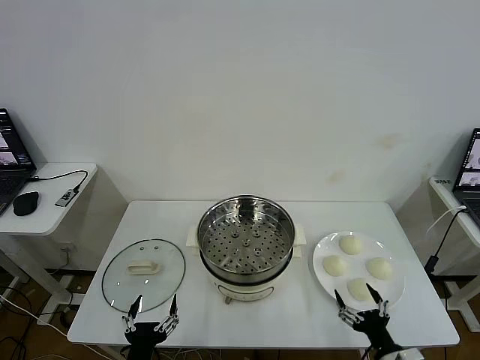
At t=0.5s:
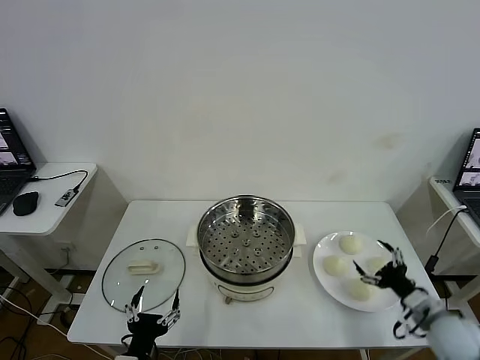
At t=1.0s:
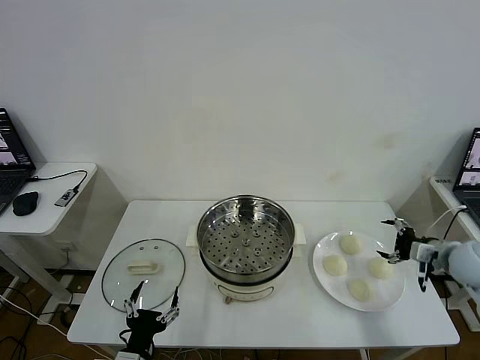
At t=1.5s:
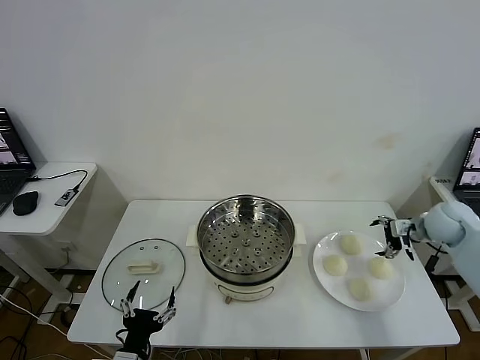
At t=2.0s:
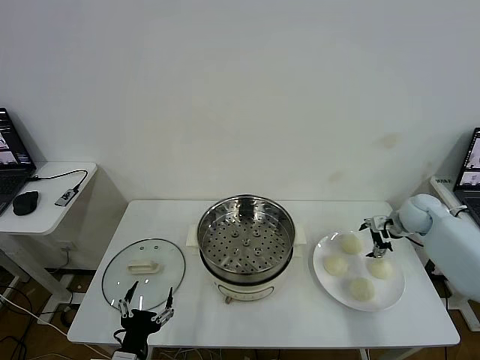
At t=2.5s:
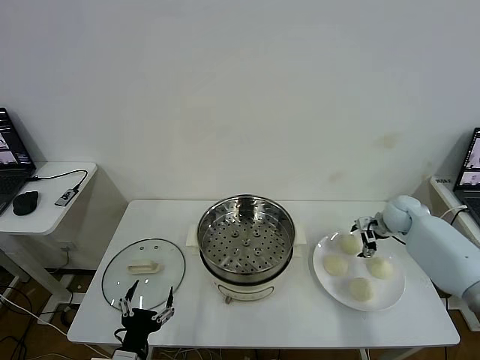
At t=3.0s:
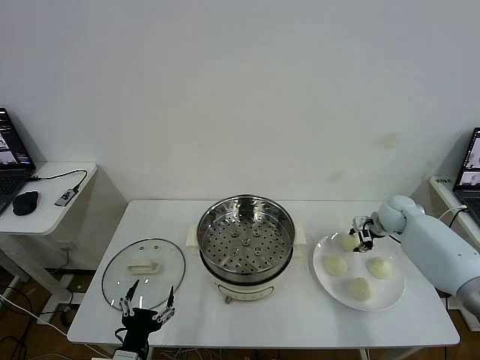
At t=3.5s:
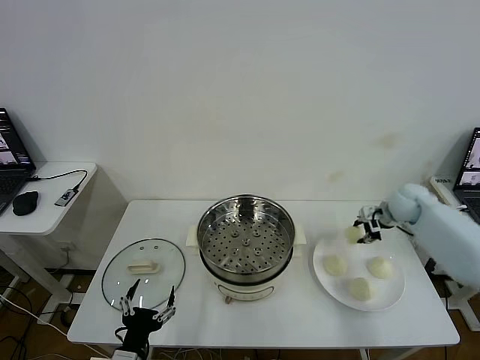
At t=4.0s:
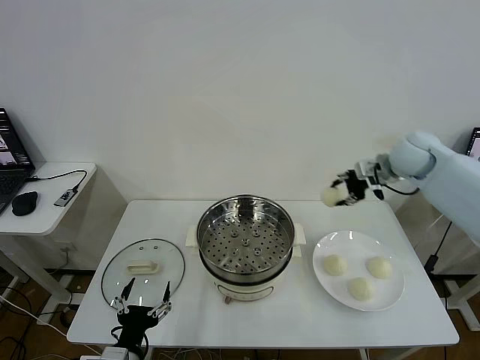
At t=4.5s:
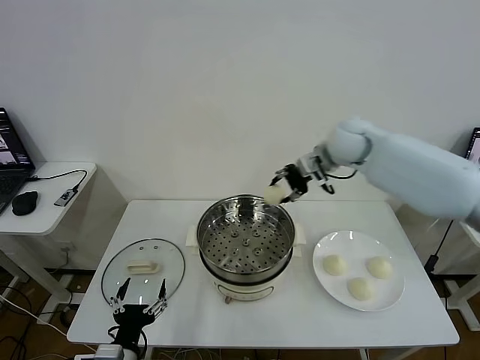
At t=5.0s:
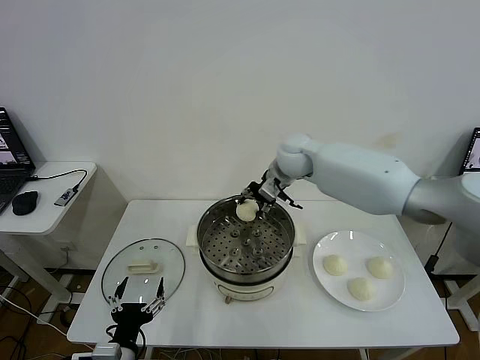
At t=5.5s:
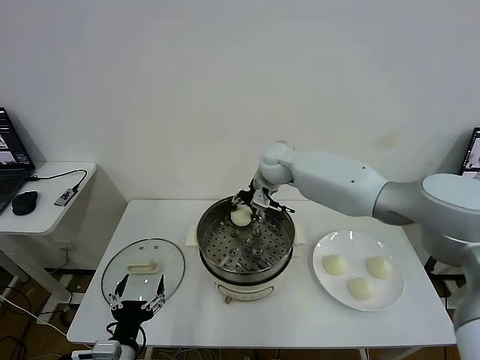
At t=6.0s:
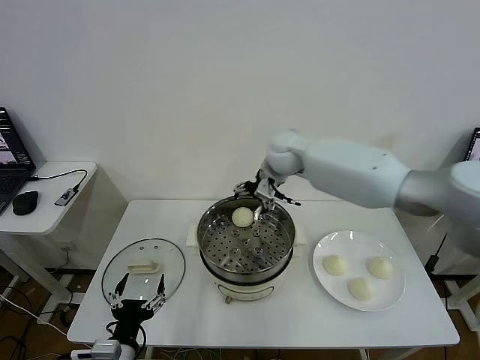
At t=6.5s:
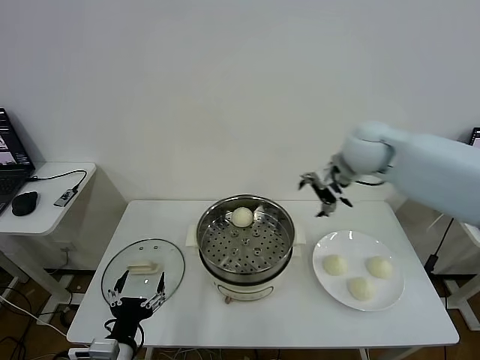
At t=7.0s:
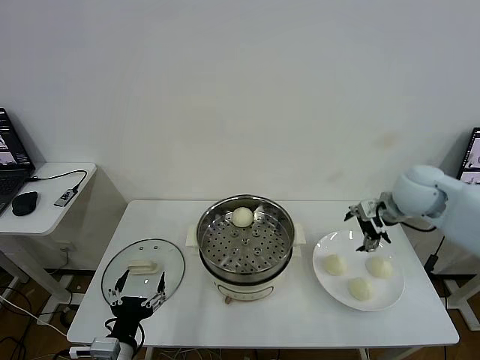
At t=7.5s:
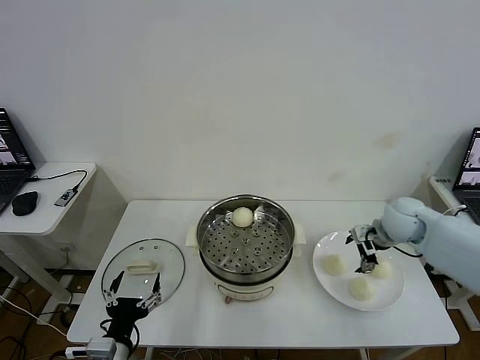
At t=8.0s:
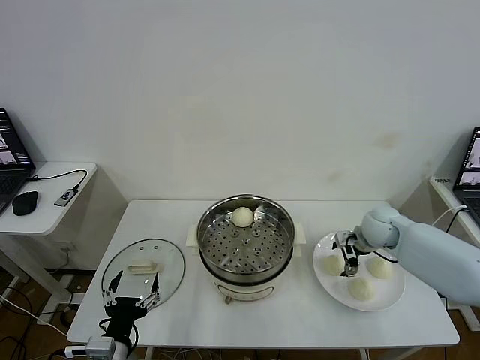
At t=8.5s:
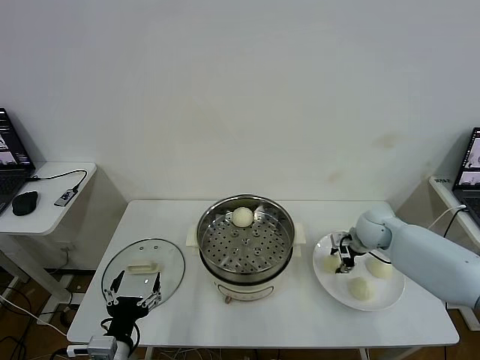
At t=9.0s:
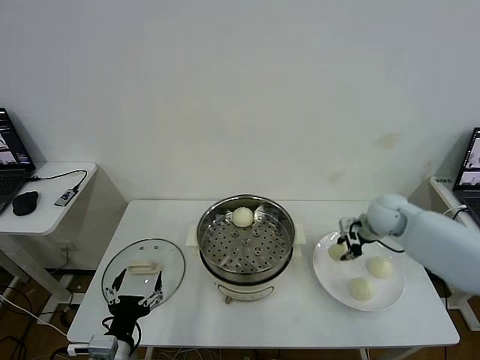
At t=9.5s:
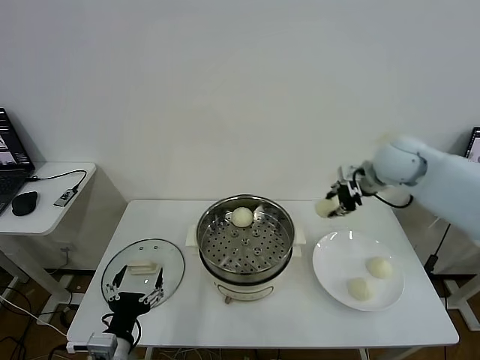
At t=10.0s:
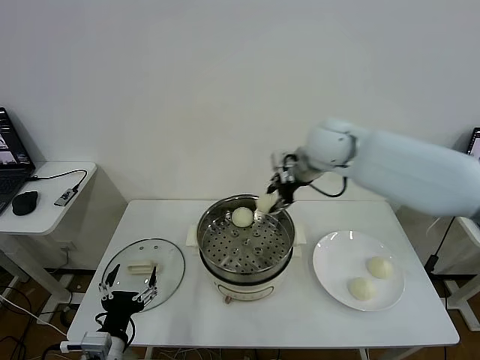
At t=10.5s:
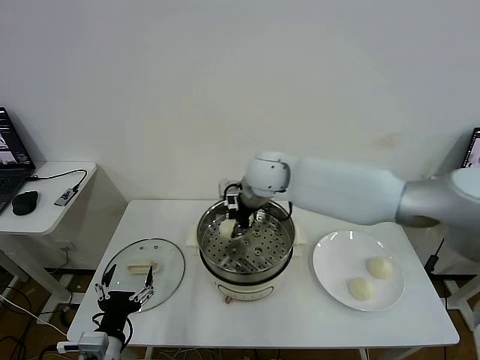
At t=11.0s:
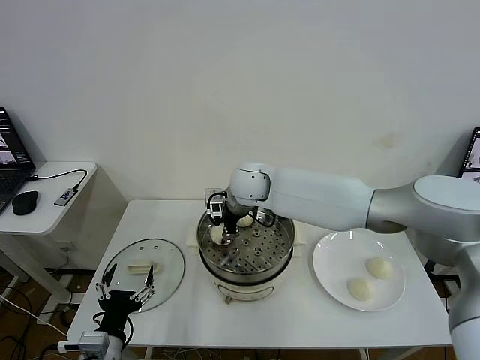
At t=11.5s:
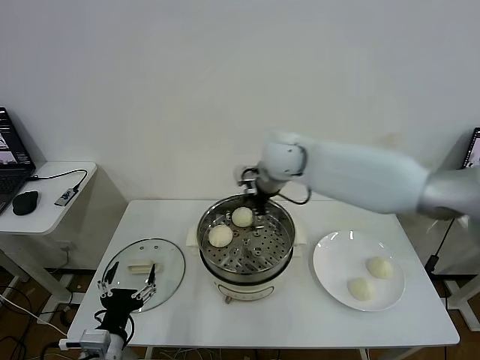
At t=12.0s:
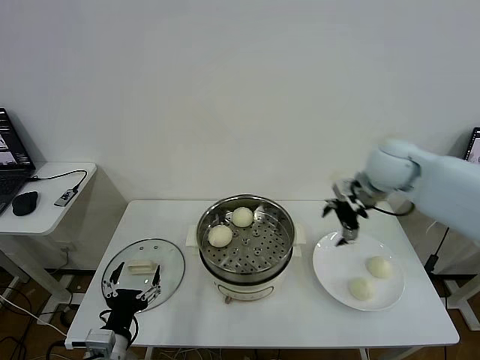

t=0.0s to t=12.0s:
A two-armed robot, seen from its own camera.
Task of the whole recording: take steamed baozi put them in steamer then cover it.
Step, t=0.0s to t=3.0s: Grasp the baozi in the plate with right gripper.
Step, t=3.5s to t=5.5s: Place the baozi on the steamer with right gripper.
Step, t=6.0s to t=8.5s: Grasp the baozi in the plate with right gripper.
Step, t=9.0s to t=11.0s: Place the baozi on the steamer with right gripper.
t=2.0s to t=4.0s: The right gripper is displaced upward and to the left by roughly 20 cm, and closes.
t=4.0s to t=6.0s: The right gripper shifts roughly 20 cm to the left, and opens its fingers.
t=6.0s to t=8.0s: The right gripper shifts about 30 cm to the right and downward.
t=8.0s to t=10.0s: The right gripper moves upward and to the left, roughly 30 cm, and closes its fingers.
t=10.0s to t=12.0s: The right gripper heads to the right, covering roughly 15 cm, and opens its fingers.

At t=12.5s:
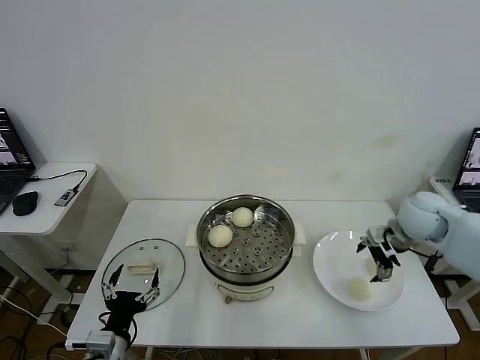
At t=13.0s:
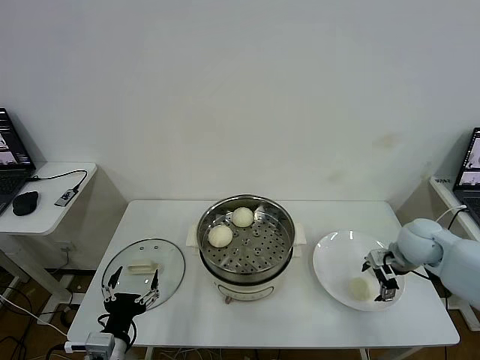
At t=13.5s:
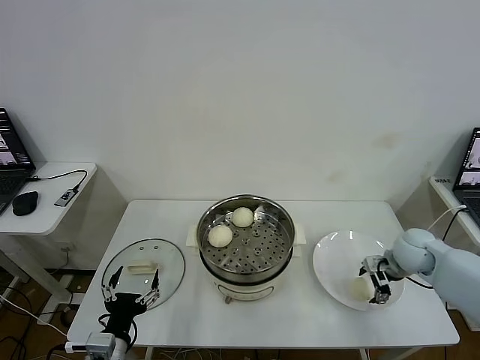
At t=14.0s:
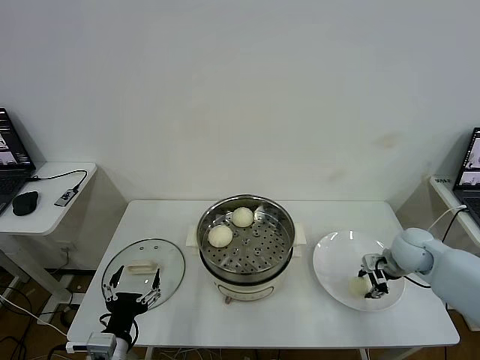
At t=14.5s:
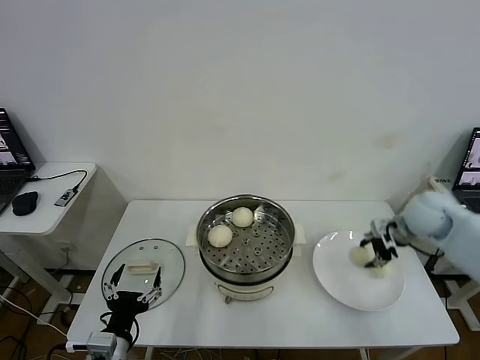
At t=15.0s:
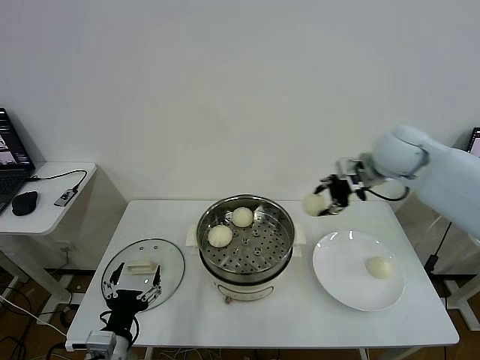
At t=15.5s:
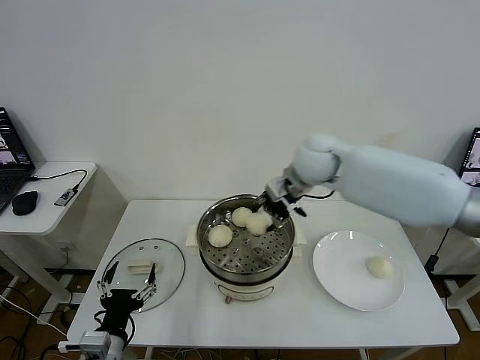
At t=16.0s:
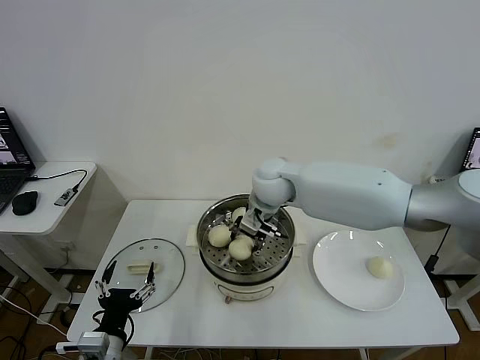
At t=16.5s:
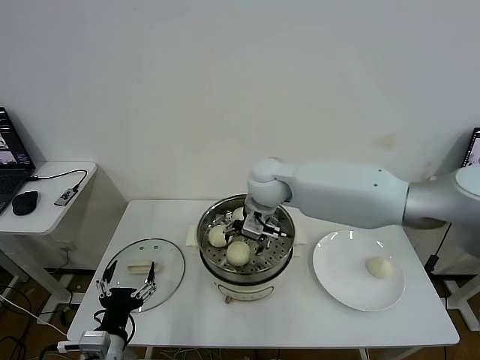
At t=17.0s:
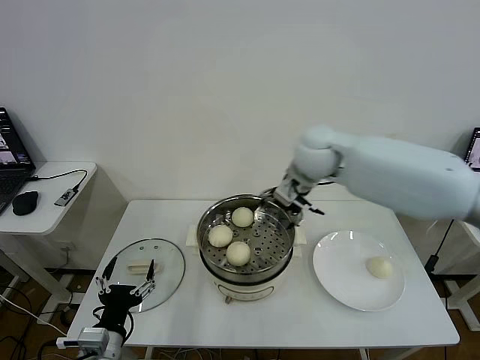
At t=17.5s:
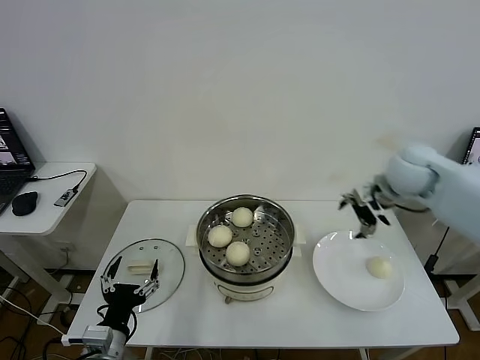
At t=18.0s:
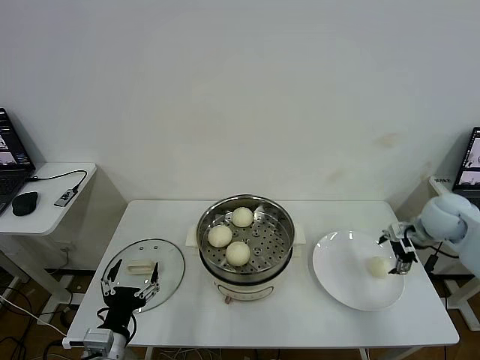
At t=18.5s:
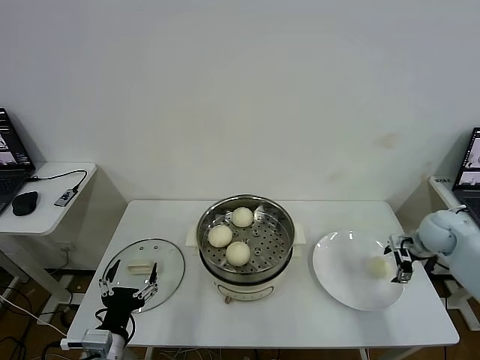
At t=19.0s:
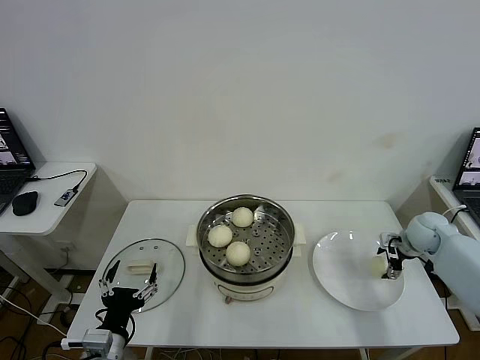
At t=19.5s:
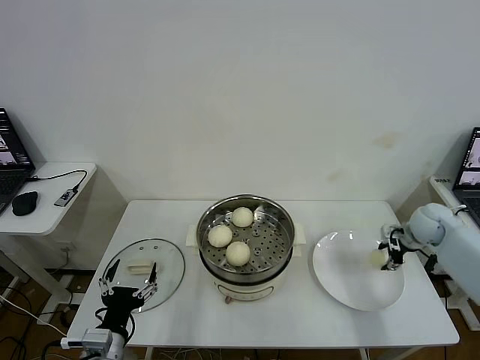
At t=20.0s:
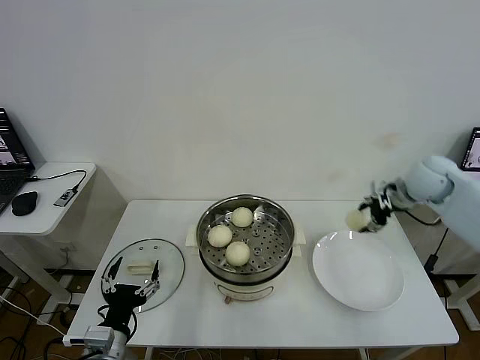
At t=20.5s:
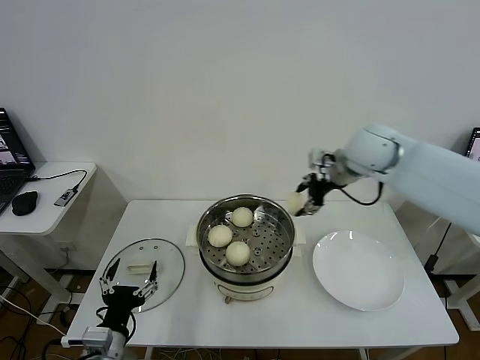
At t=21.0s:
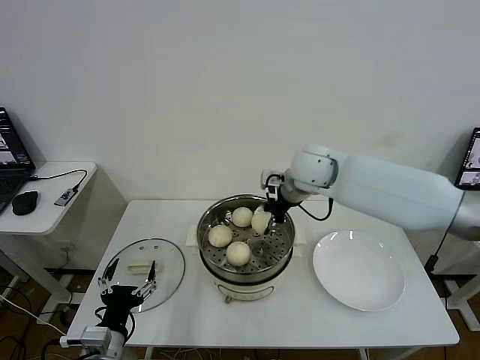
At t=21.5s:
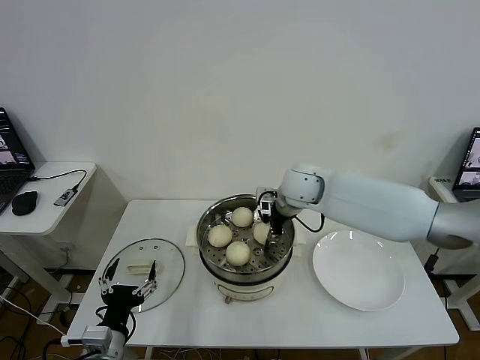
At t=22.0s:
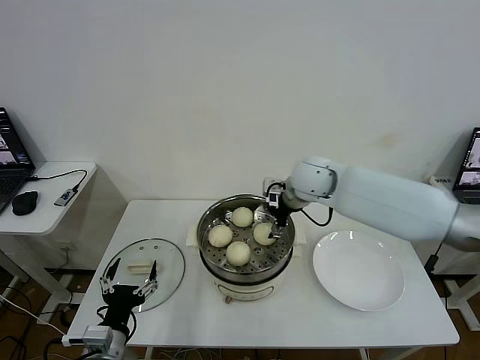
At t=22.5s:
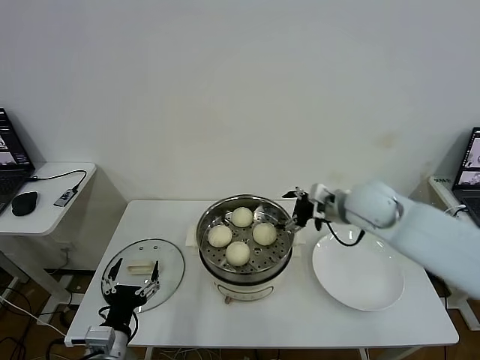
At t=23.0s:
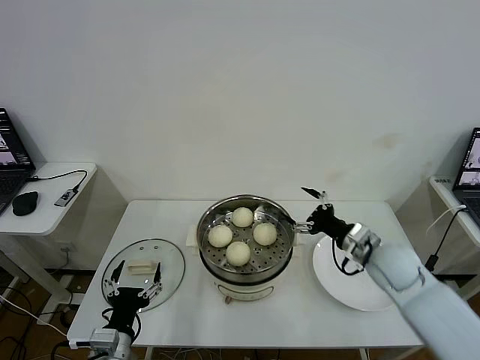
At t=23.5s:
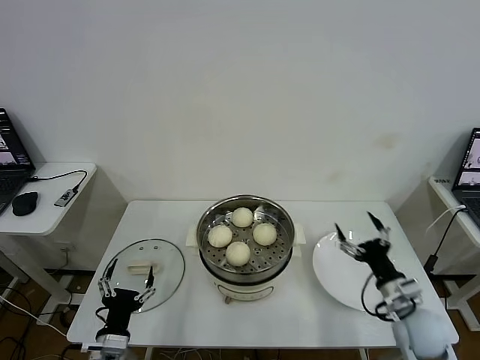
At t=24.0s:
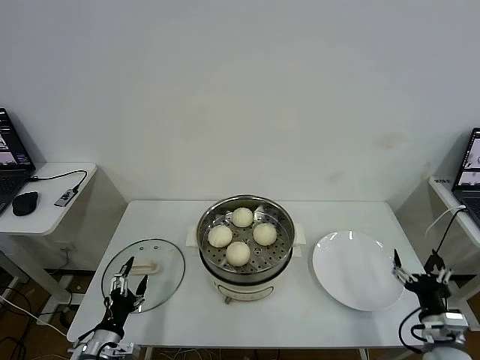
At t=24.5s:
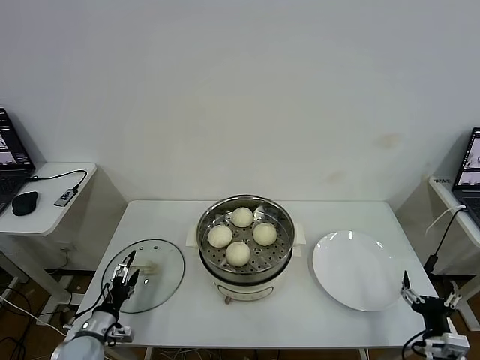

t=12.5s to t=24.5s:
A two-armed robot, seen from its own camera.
Task of the whole recording: take steamed baozi put them in steamer then cover it.
Step, t=14.0s to t=16.5s: Place the baozi on the steamer with right gripper.
Step, t=17.0s to t=19.0s: Grasp the baozi in the plate with right gripper.
Step, t=19.5s to t=21.5s: Place the baozi on the steamer with right gripper.
t=12.5s to t=14.5s: The right gripper reaches about 10 cm downward, then returns, and closes.
t=14.5s to t=16.5s: The right gripper goes roughly 35 cm to the left, and opens up.
t=16.5s to t=18.5s: The right gripper heads to the right, covering about 40 cm.
t=18.5s to t=20.5s: The right gripper is displaced to the left and upward by some 30 cm, and closes.
t=20.5s to t=22.5s: The right gripper moves downward and backward, approximately 10 cm, reaches roughly 10 cm to the left, then returns, and opens its fingers.
t=22.5s to t=24.5s: The left gripper goes approximately 20 cm downward, to the left and forward. Meanwhile the right gripper travels backward, downward and to the right by some 40 cm.

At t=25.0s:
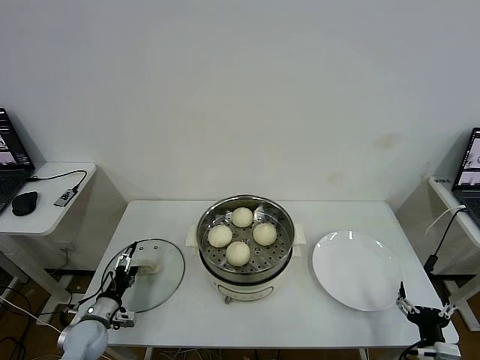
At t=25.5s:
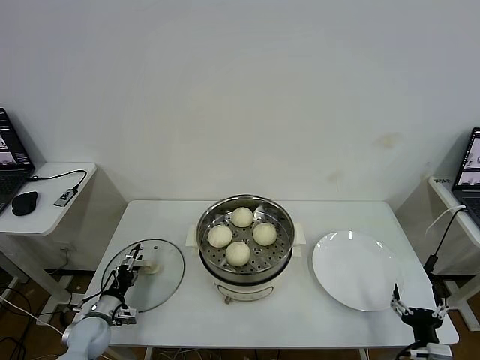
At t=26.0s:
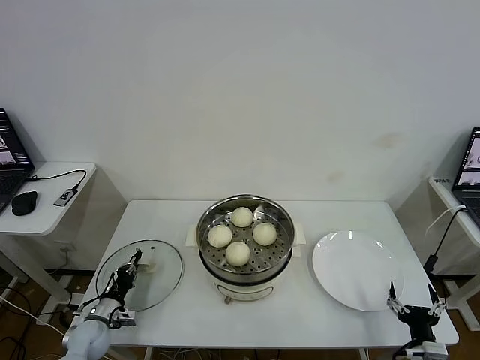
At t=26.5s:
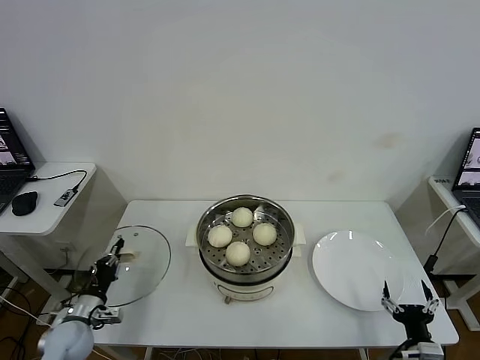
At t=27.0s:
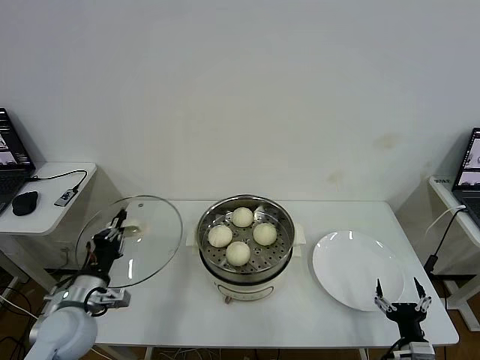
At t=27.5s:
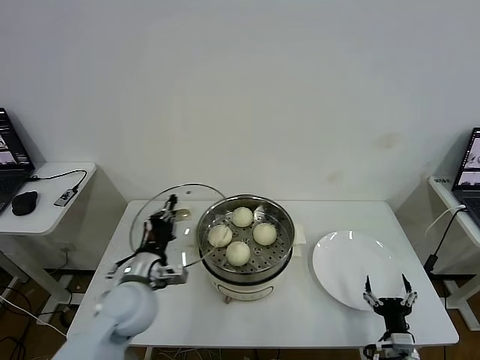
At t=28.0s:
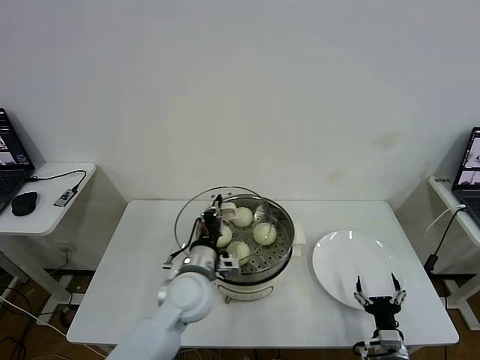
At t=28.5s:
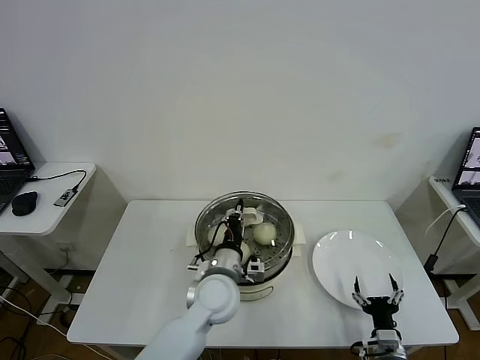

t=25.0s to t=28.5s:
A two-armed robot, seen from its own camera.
Task of the whole recording: take steamed baozi put them in steamer then cover it.
t=25.0s to t=27.0s: The left gripper heads upward, covering approximately 15 cm, and closes its fingers.
t=27.0s to t=28.5s: The left gripper travels to the right by about 30 cm. The right gripper moves roughly 5 cm.
